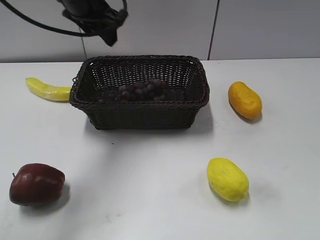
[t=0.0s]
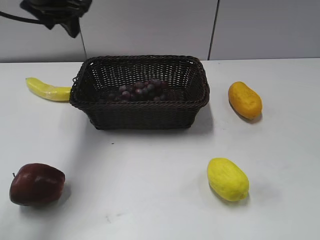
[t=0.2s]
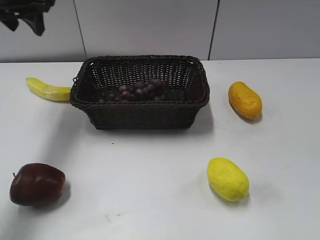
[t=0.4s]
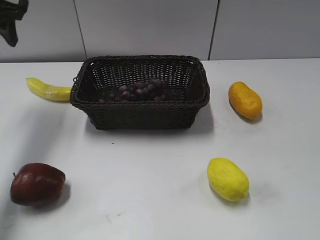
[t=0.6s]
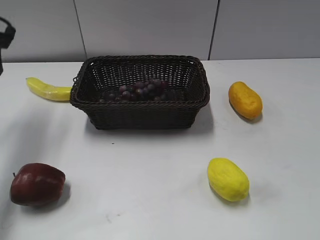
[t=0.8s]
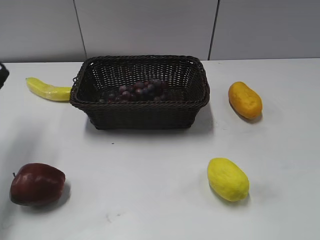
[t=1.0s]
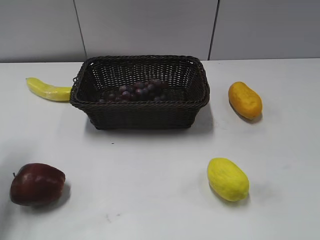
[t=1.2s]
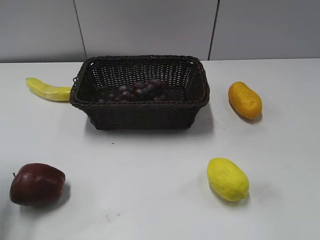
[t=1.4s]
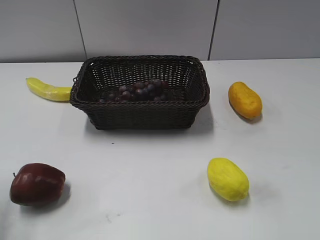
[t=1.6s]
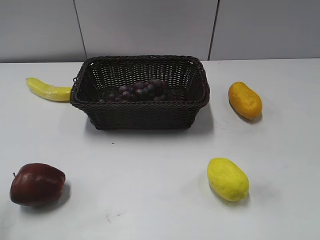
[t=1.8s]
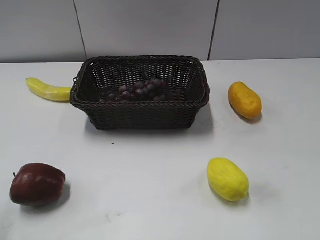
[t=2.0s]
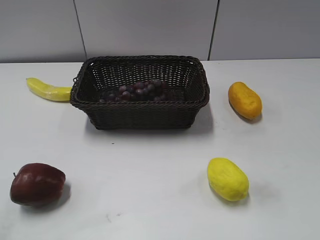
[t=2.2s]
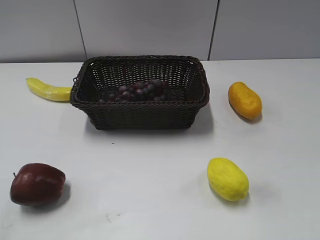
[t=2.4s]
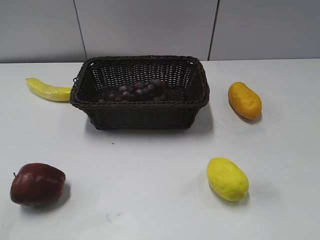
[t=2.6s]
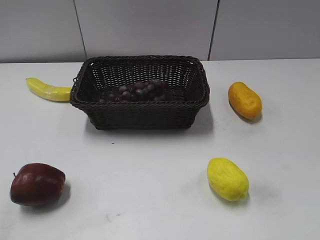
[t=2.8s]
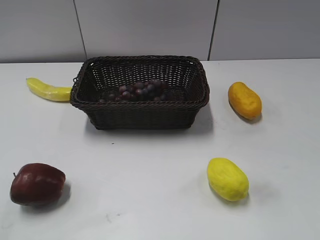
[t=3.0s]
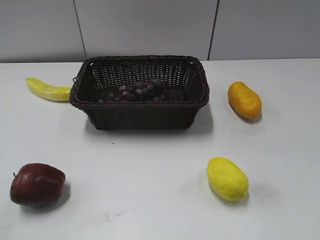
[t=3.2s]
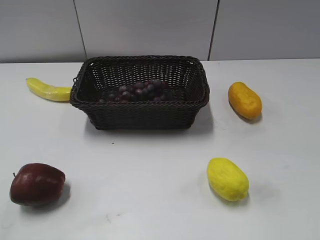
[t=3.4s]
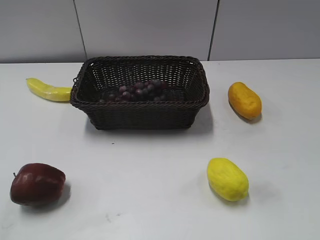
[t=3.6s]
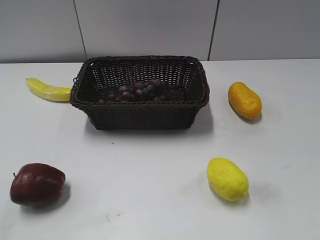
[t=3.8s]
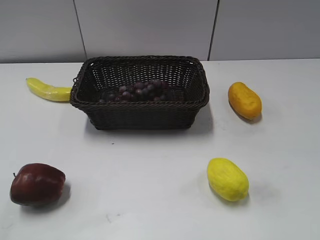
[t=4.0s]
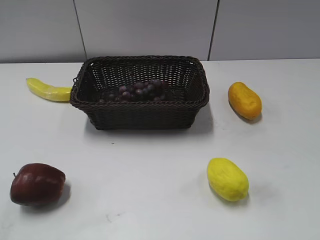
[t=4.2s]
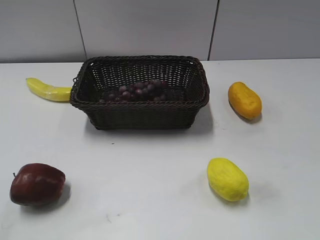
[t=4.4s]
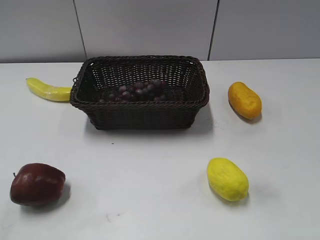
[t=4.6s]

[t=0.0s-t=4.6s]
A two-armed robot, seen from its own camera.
t=0.0s to t=1.6s: The left gripper shifts approximately 30 cm backward and to the left.

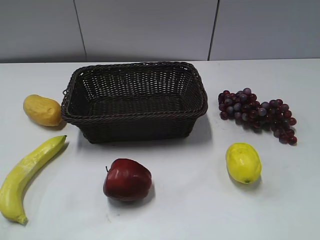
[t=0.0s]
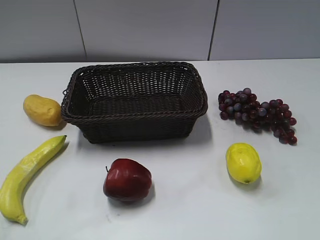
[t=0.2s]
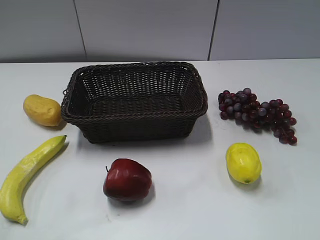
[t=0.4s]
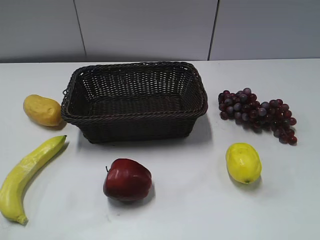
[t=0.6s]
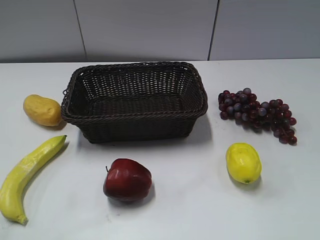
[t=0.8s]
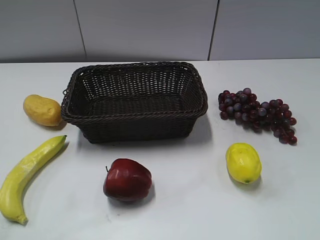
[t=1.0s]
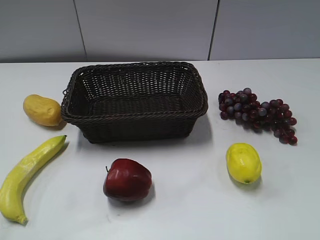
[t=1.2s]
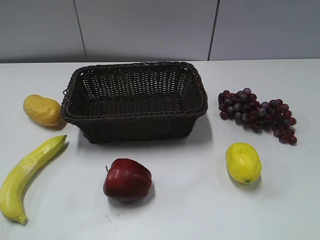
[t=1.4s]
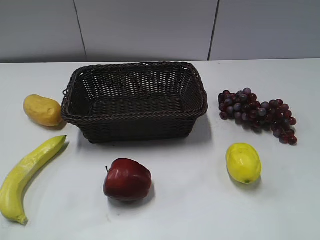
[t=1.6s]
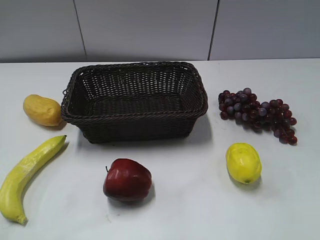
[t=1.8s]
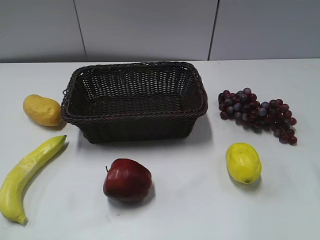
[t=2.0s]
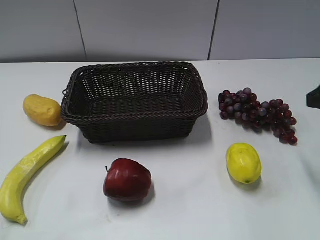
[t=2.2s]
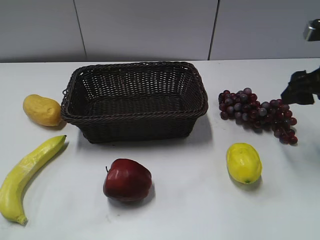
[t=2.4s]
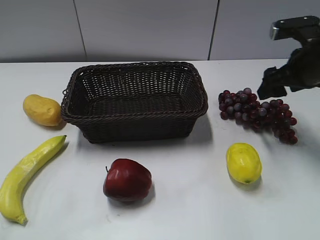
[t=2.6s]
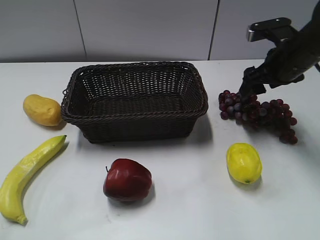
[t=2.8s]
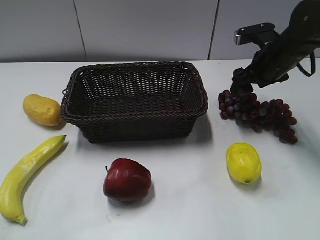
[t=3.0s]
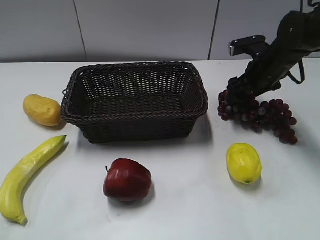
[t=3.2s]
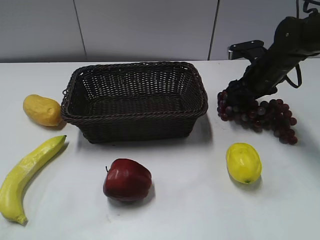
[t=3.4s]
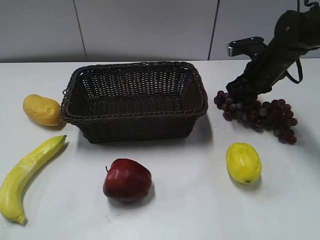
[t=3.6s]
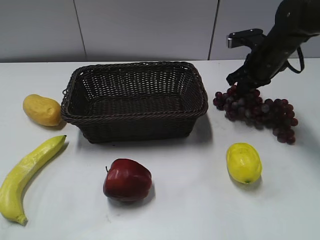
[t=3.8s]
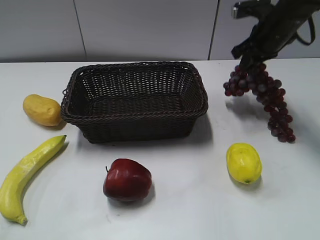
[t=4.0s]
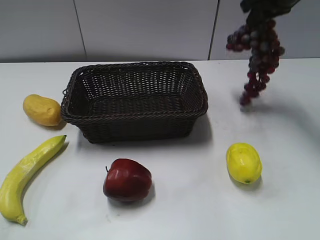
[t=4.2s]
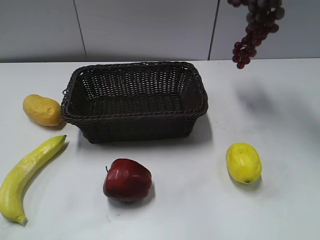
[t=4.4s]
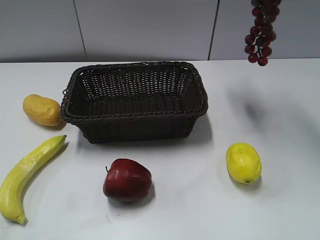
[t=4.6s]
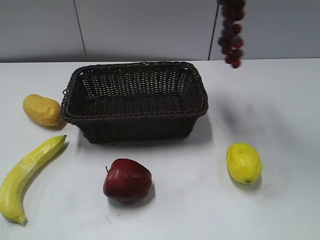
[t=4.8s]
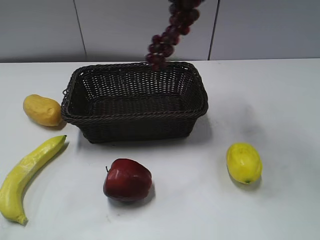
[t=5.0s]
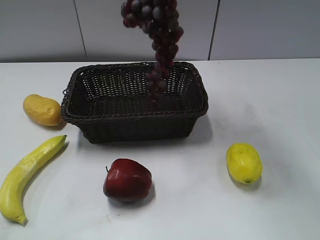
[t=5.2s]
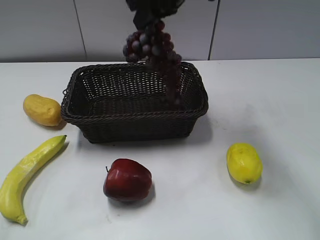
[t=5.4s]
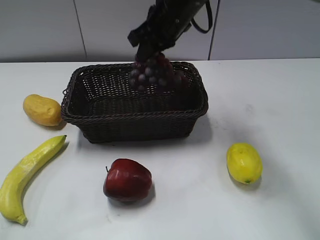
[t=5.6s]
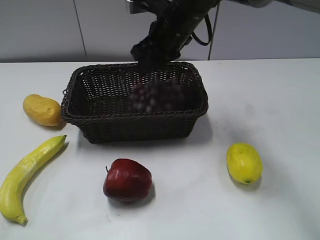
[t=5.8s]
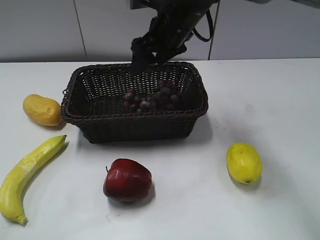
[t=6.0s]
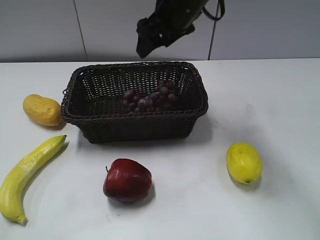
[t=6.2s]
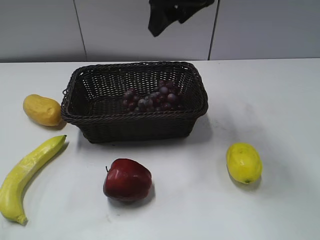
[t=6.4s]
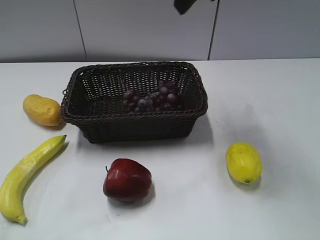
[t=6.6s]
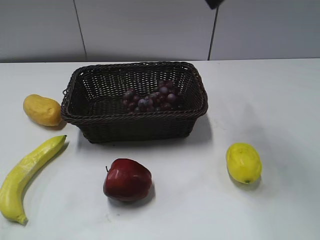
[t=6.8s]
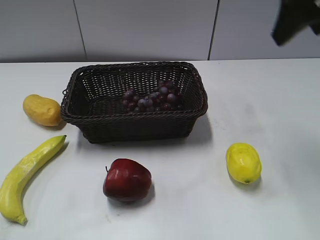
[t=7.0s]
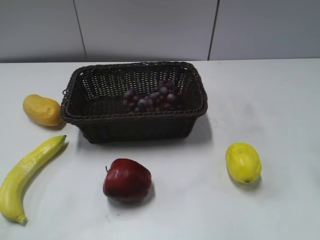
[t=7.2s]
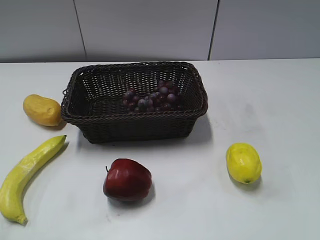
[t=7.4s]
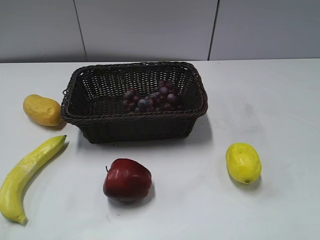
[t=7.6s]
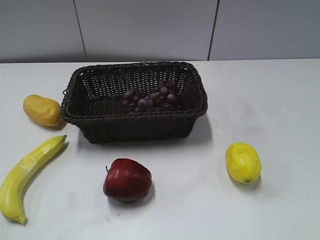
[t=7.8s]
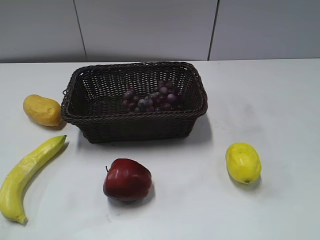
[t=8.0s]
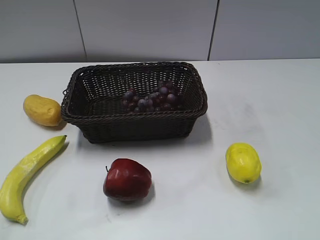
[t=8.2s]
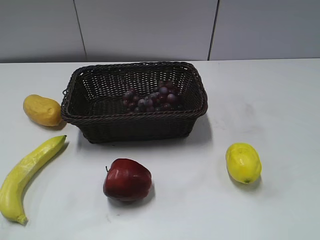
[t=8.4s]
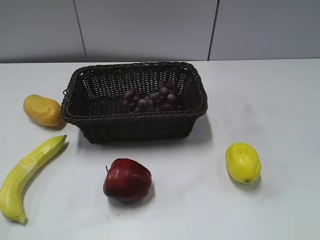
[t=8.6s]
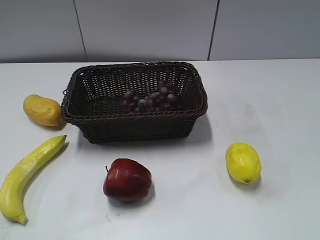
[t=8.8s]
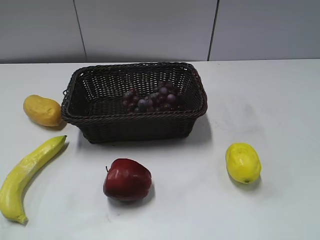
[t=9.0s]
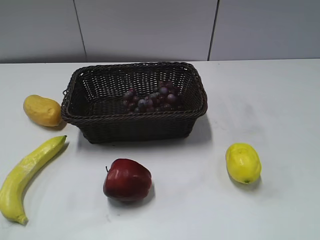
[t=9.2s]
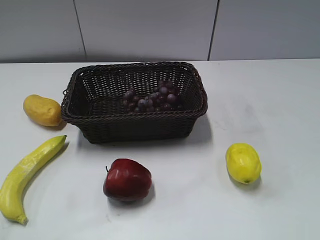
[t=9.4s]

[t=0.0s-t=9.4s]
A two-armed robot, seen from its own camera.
Step, t=2.2s to t=3.8s: Grasp the grape with right gripper.
Step, t=4.2s to t=5.8s: Place the grape in the basket with right gripper.
t=1.6s to t=3.2s: The right gripper travels forward and downward by about 40 cm.
t=3.2s to t=4.8s: The right gripper is displaced upward by roughly 30 cm, and closes its fingers.
t=4.8s to t=6.2s: The right gripper goes approximately 20 cm downward and to the left, and opens its fingers.
t=6.2s to t=7.8s: The right gripper goes roughly 40 cm backward and to the right.

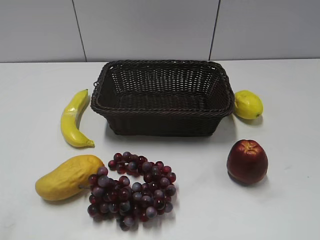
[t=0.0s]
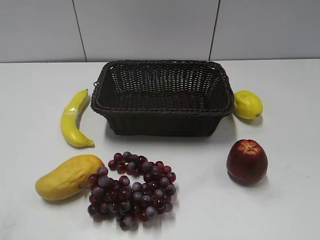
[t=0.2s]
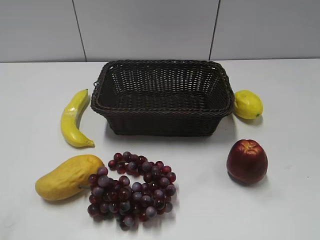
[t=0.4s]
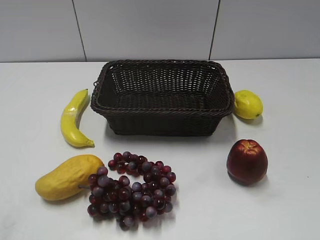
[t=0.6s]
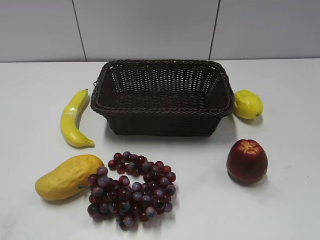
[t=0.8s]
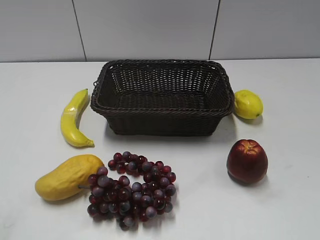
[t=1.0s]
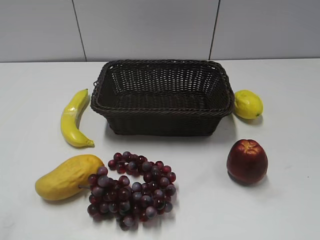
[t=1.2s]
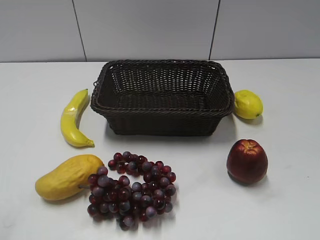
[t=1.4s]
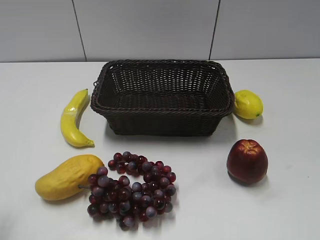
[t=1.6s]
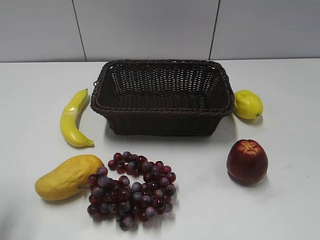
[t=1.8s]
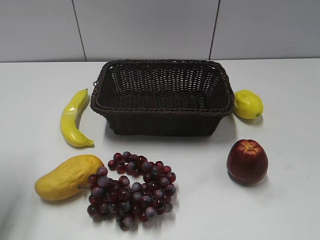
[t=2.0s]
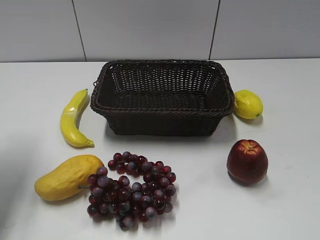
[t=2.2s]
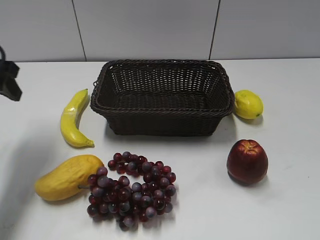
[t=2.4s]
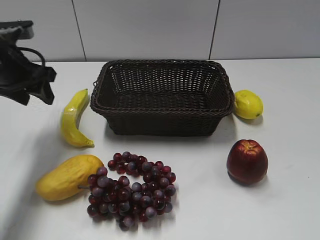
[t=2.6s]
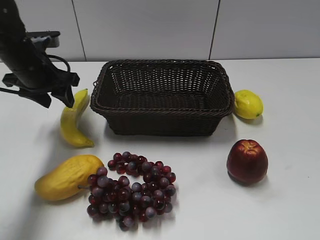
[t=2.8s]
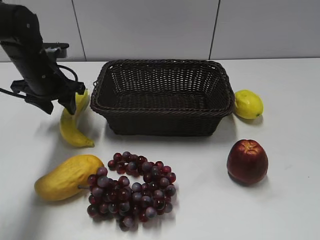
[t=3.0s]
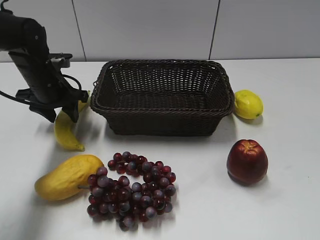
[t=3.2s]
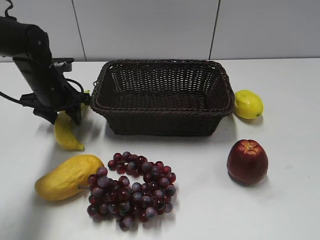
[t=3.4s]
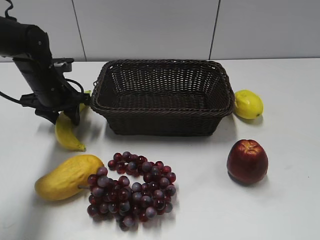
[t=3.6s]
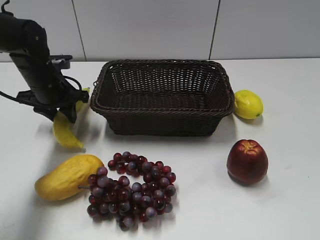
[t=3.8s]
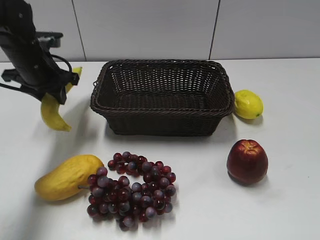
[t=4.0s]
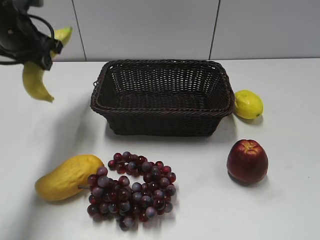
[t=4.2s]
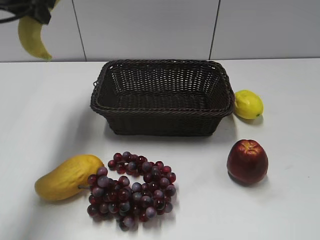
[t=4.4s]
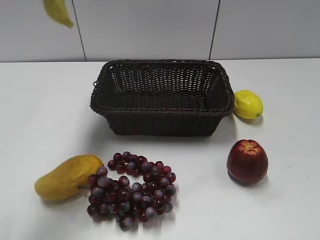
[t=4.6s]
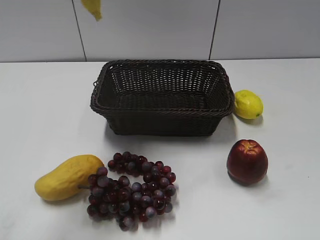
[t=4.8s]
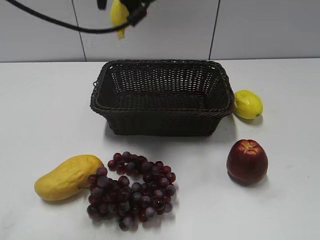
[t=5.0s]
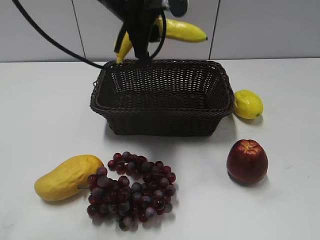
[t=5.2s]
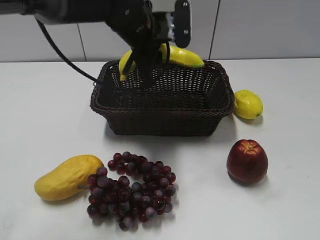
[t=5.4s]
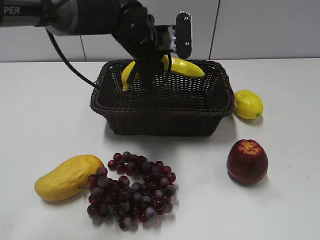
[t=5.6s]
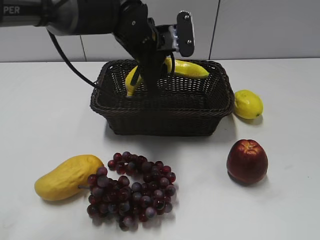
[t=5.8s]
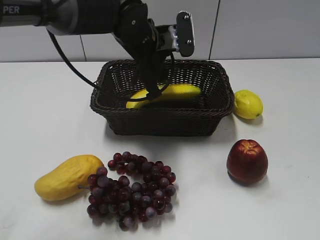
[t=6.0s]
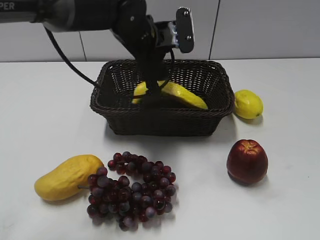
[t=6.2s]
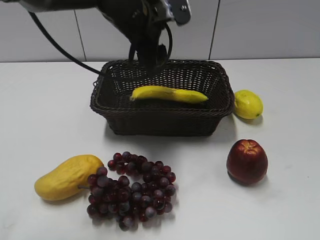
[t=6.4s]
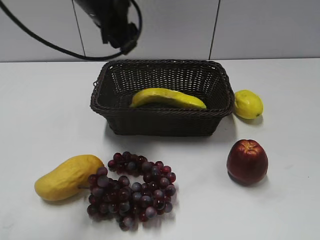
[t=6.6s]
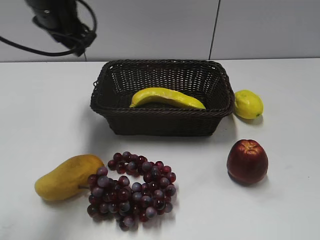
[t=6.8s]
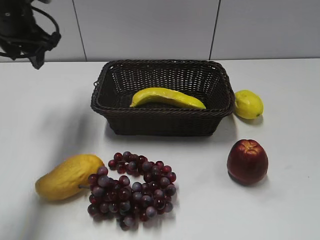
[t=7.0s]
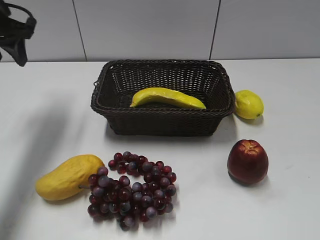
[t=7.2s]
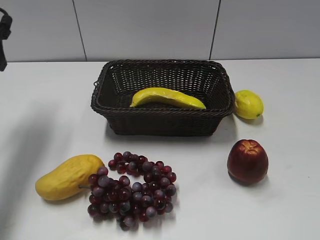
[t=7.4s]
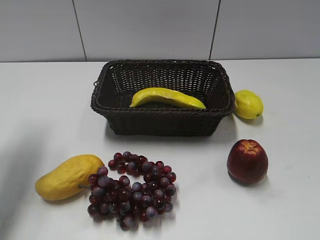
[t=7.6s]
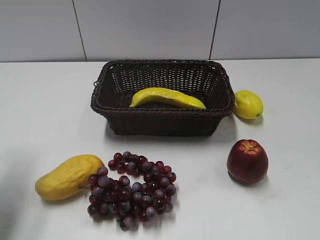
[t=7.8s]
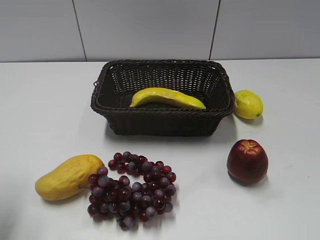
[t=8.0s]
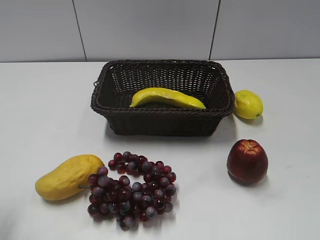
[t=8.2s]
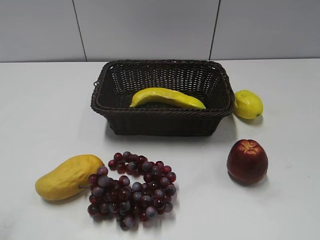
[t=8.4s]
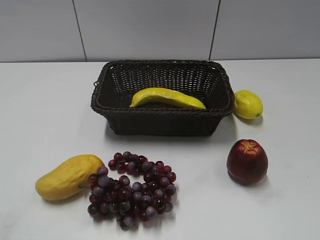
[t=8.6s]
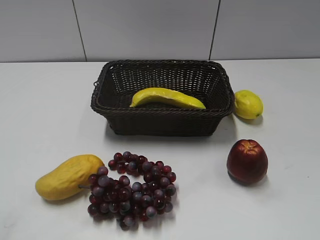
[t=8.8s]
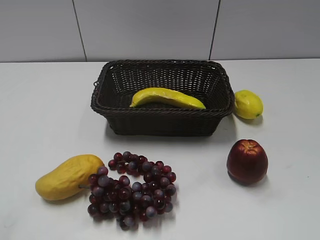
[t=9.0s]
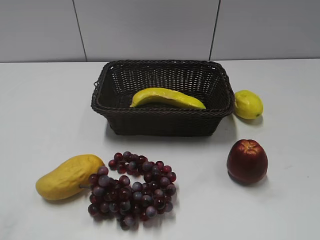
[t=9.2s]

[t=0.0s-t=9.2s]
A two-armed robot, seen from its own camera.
Step, t=2.4s to t=3.6s: Grasp the banana with left gripper.
Step, t=3.8s to t=6.2s: Place the banana in the basket with left gripper.
t=1.6s to t=3.0s: The left gripper shifts approximately 35 cm forward and downward.
t=3.0s to t=4.6s: The left gripper moves upward, approximately 20 cm, and closes its fingers.
t=4.6s to t=6.2s: The left gripper is displaced downward and to the right by roughly 20 cm, and opens up.
t=6.2s to t=7.6s: The left gripper shifts some 30 cm to the left.
t=7.6s to t=9.2s: The left gripper travels backward by about 30 cm.
